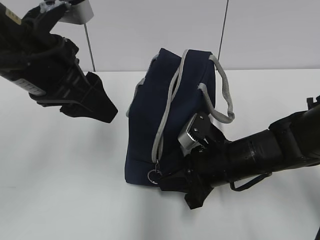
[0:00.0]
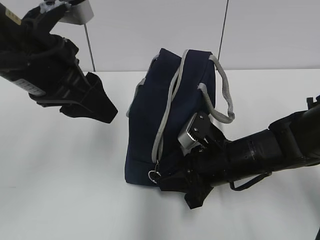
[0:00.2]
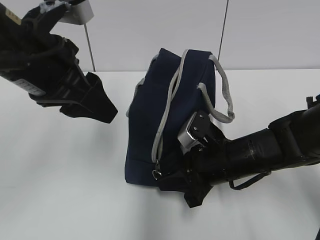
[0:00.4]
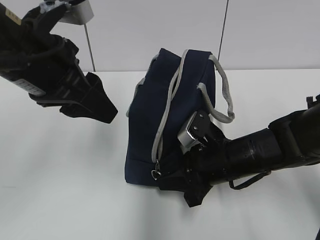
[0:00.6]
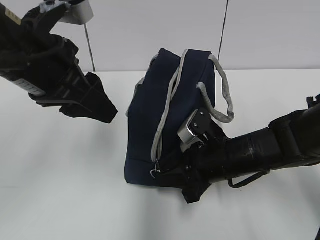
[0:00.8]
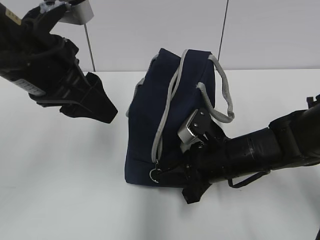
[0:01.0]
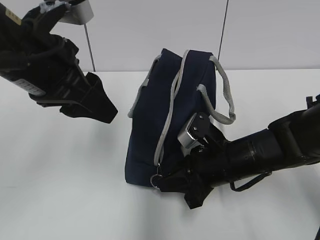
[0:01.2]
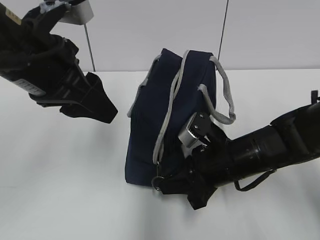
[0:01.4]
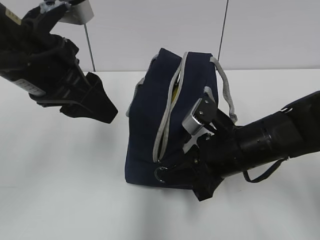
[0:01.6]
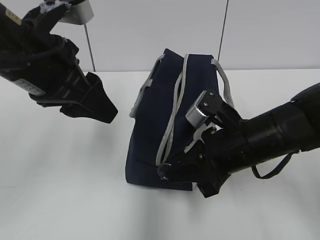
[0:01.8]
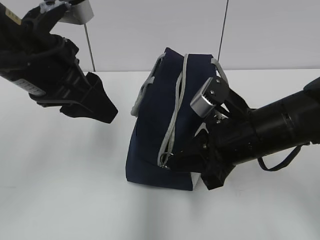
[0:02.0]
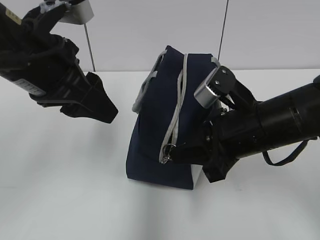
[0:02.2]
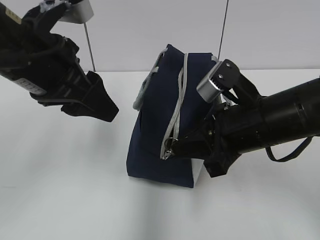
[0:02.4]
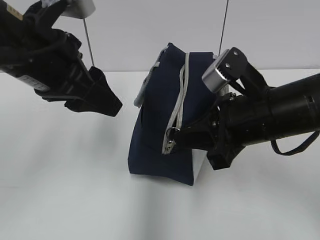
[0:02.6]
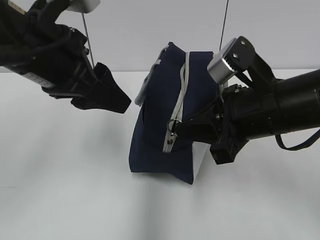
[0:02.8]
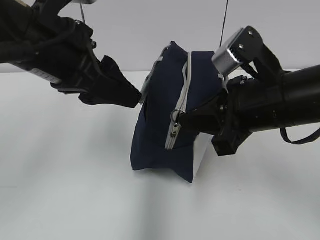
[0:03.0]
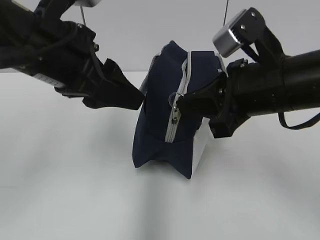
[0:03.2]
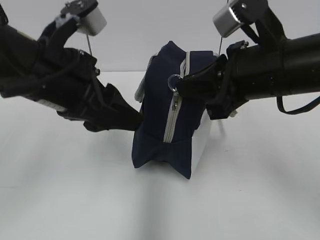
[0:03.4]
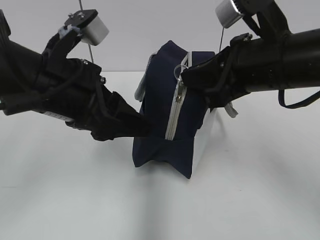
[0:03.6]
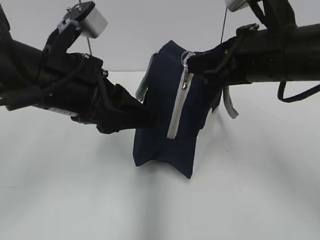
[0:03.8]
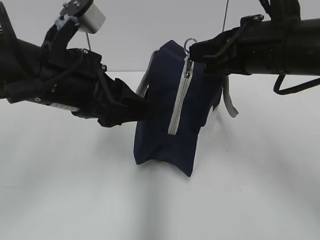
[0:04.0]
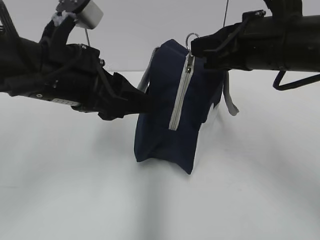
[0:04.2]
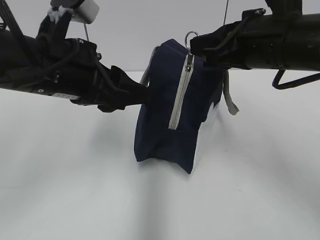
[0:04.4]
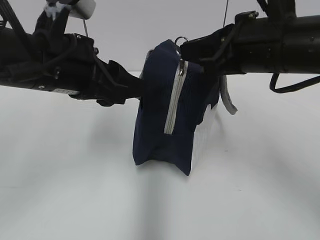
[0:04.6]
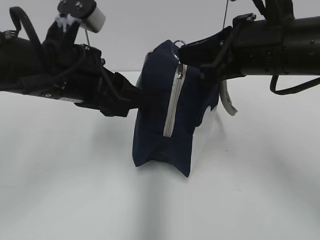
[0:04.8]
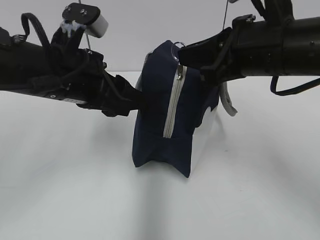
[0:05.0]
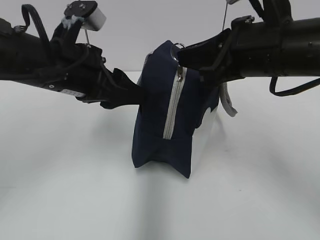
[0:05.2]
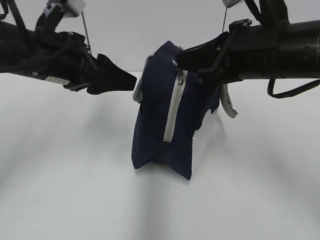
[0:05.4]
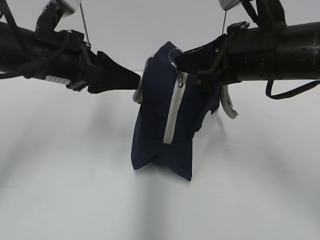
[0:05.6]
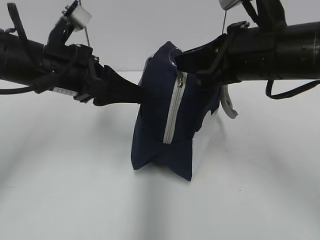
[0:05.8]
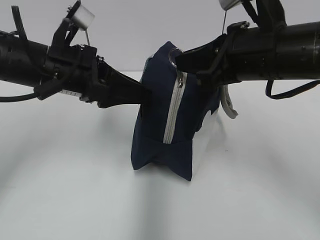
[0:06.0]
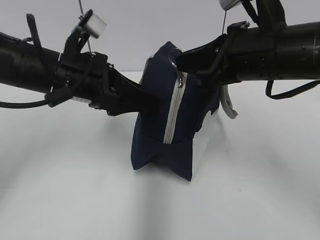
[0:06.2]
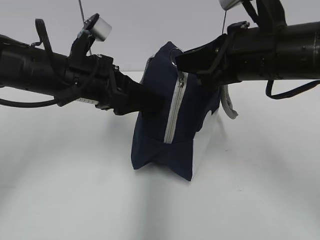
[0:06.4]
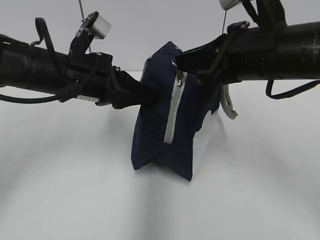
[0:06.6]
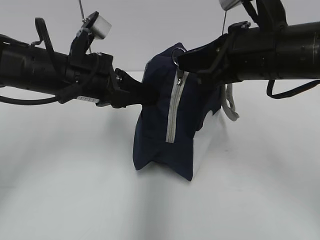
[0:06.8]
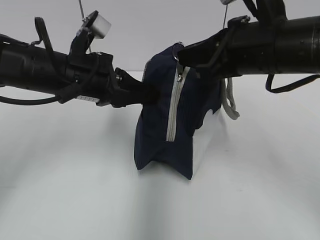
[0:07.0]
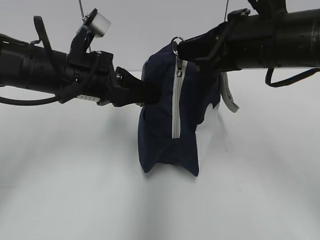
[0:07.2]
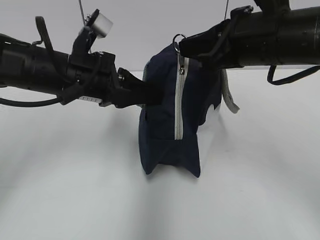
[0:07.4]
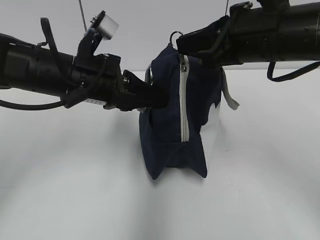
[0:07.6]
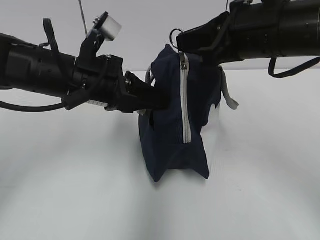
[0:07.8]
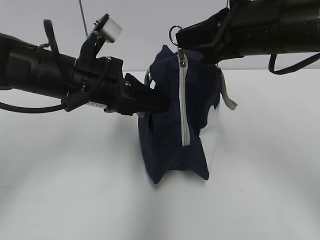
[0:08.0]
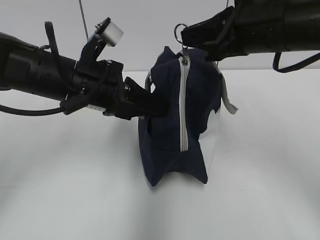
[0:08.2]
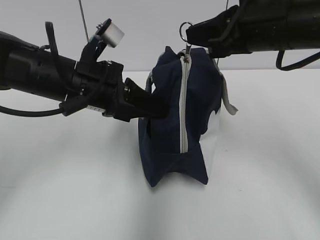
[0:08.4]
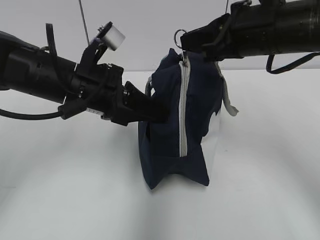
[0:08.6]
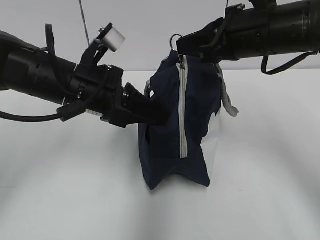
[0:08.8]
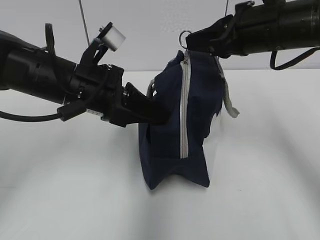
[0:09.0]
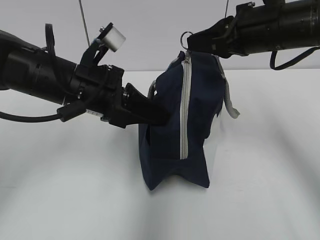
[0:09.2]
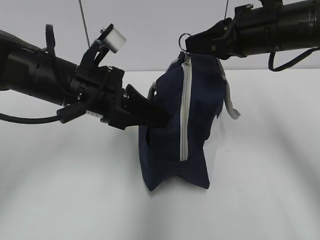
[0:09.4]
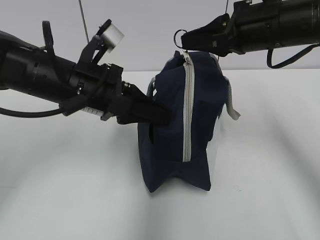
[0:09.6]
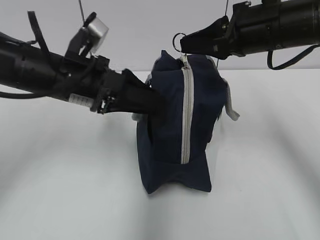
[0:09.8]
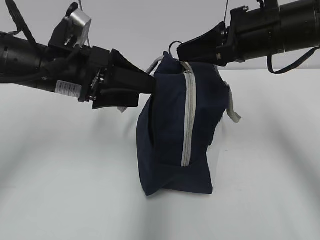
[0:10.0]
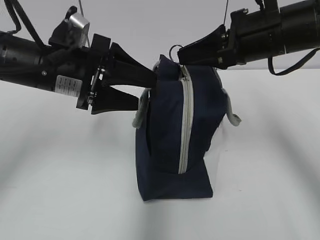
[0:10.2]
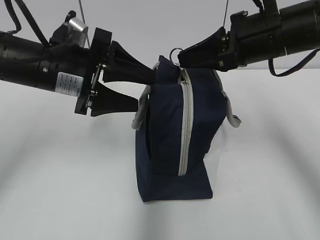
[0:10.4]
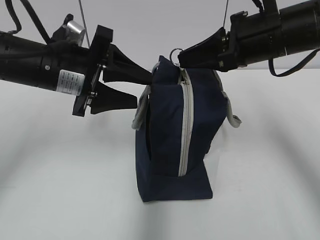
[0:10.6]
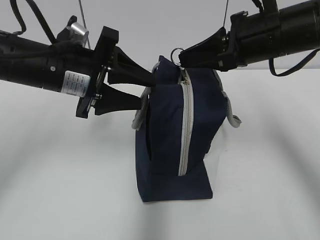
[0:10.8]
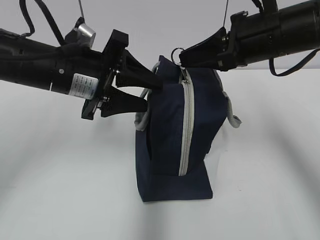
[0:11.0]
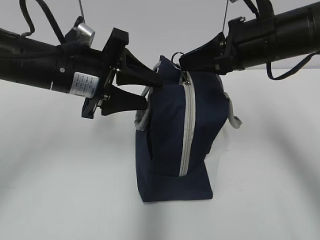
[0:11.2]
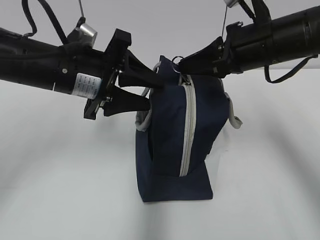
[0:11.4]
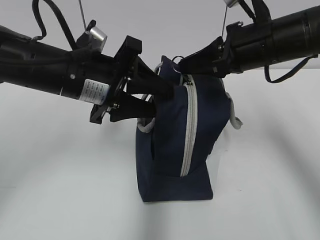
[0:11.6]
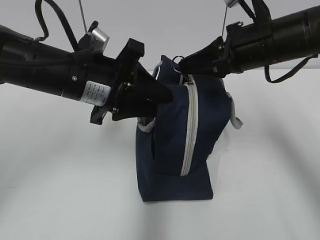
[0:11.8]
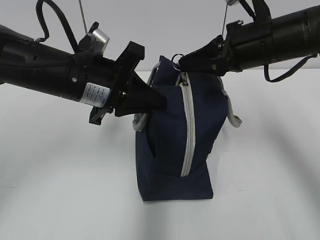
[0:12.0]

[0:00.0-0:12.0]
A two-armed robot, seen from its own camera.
0:00.0 to 0:01.6: The grippers stay close to where they were, moving slightly.
0:01.6 to 0:03.0: The right gripper moves upward, about 10 cm.
0:03.0 to 0:04.4: The right gripper ends up approximately 5 cm from where it was.
0:04.4 to 0:06.0: The left gripper heads forward, covering roughly 5 cm.
0:06.0 to 0:07.6: The left gripper closes up.
0:07.6 to 0:09.0: The right gripper ends up about 5 cm from where it was.
0:09.0 to 0:10.4: The left gripper opens its fingers.
0:10.4 to 0:12.0: The left gripper closes up.

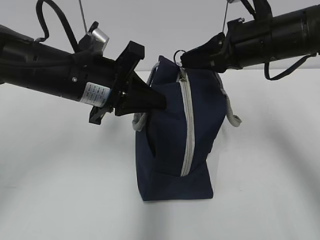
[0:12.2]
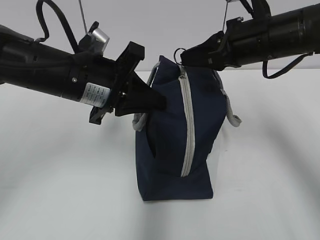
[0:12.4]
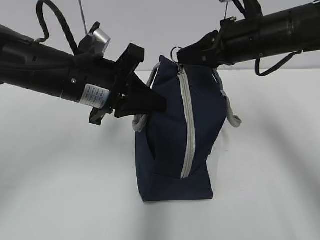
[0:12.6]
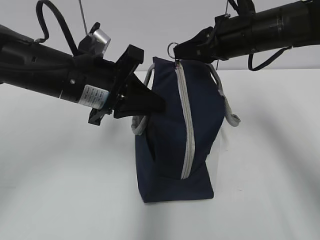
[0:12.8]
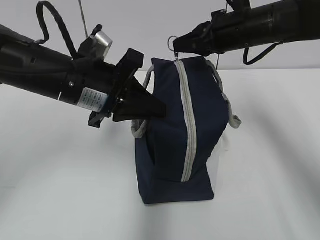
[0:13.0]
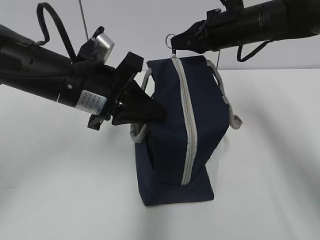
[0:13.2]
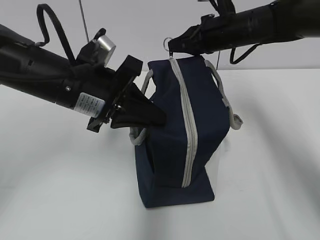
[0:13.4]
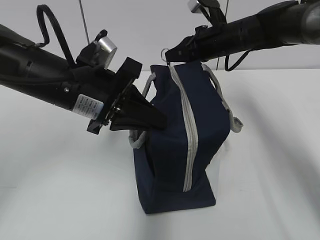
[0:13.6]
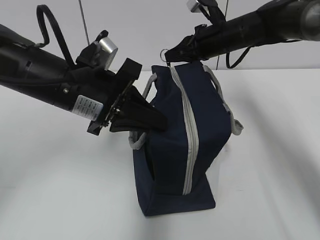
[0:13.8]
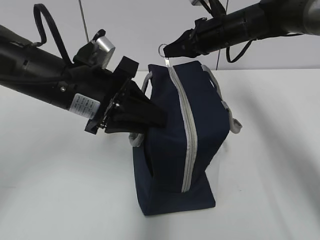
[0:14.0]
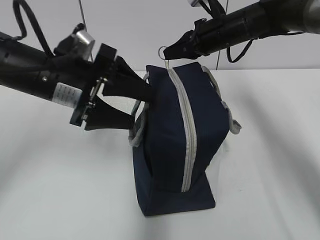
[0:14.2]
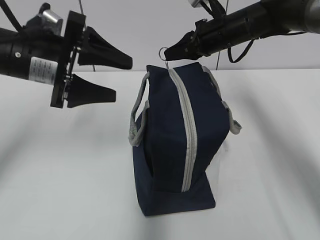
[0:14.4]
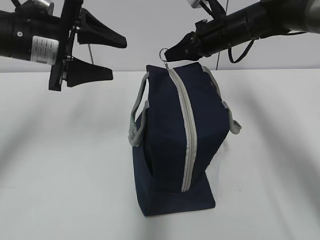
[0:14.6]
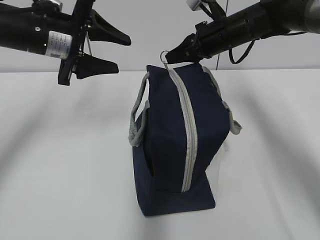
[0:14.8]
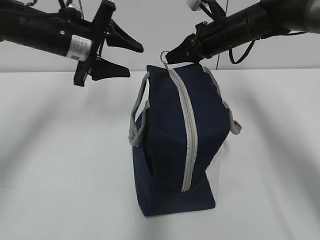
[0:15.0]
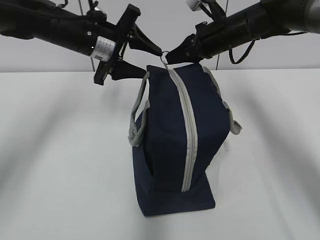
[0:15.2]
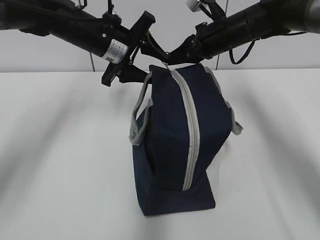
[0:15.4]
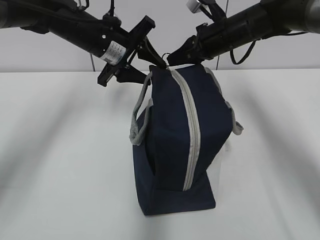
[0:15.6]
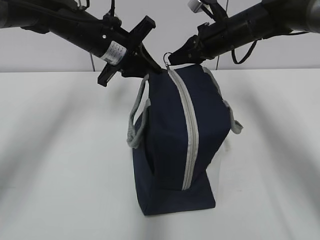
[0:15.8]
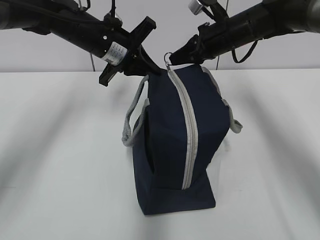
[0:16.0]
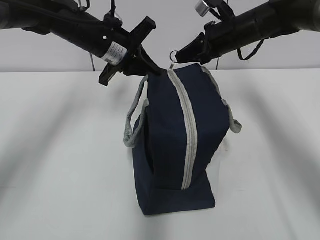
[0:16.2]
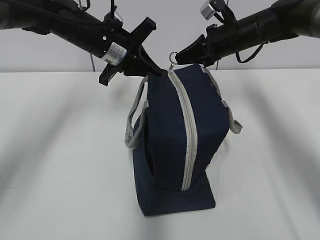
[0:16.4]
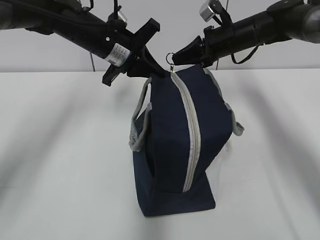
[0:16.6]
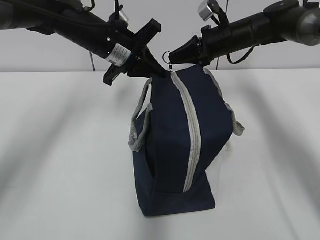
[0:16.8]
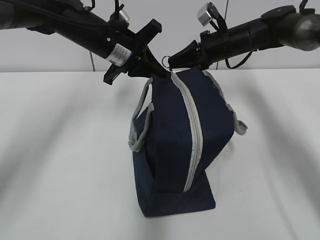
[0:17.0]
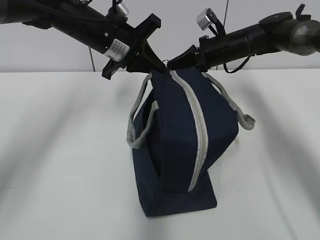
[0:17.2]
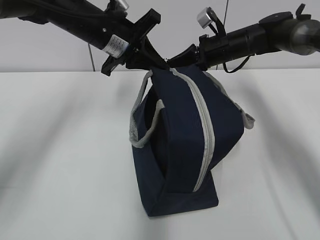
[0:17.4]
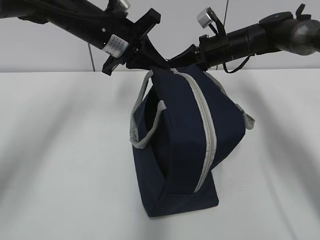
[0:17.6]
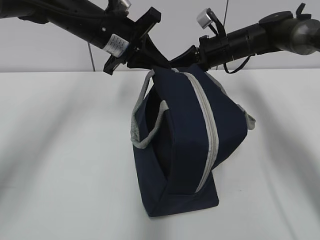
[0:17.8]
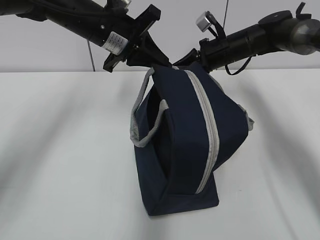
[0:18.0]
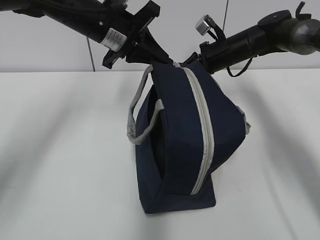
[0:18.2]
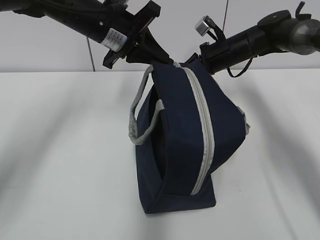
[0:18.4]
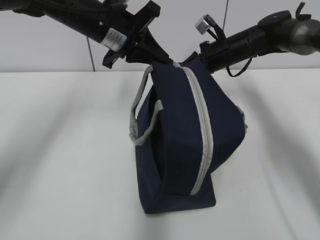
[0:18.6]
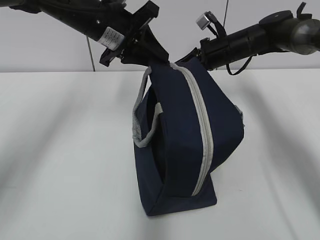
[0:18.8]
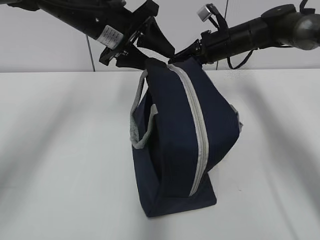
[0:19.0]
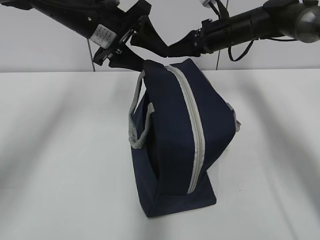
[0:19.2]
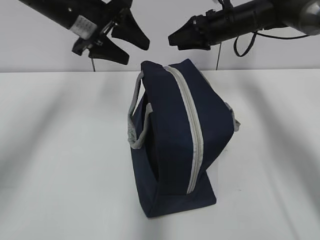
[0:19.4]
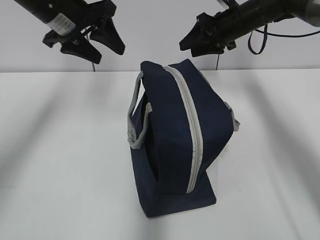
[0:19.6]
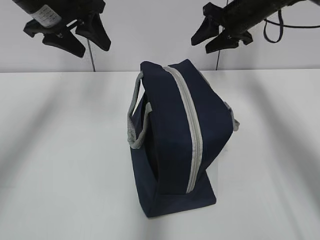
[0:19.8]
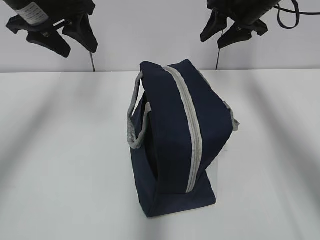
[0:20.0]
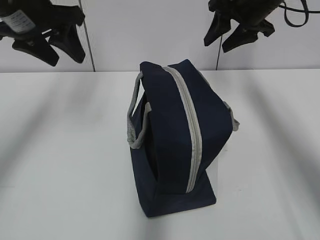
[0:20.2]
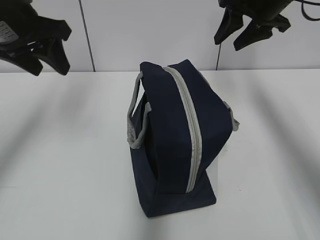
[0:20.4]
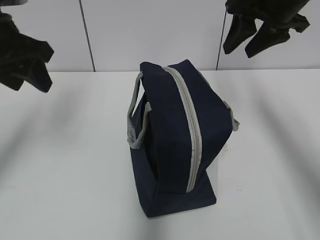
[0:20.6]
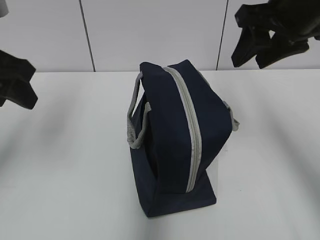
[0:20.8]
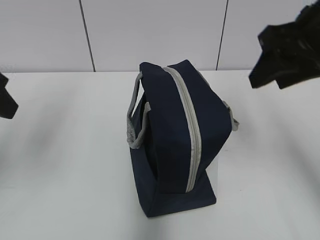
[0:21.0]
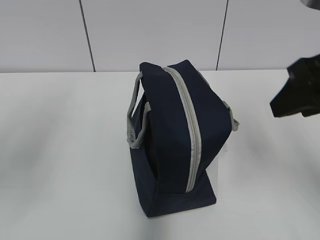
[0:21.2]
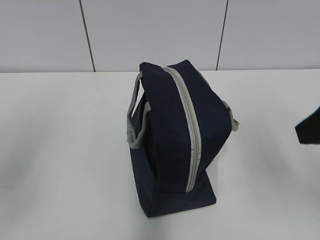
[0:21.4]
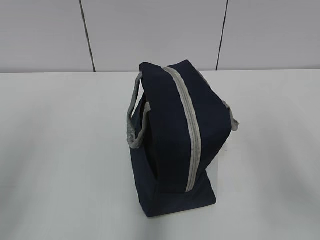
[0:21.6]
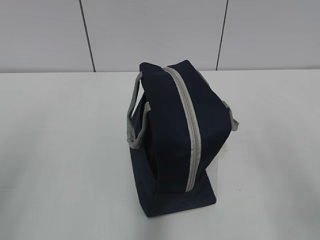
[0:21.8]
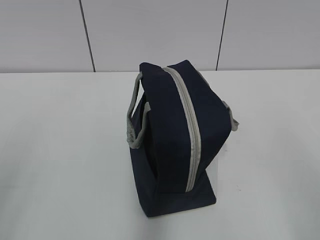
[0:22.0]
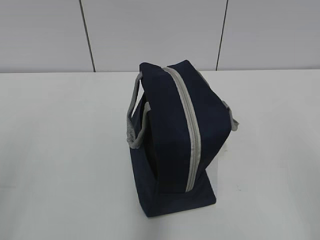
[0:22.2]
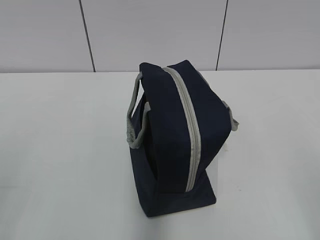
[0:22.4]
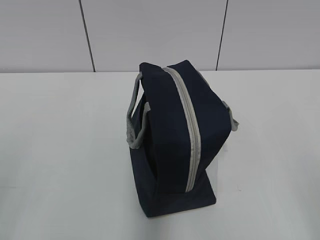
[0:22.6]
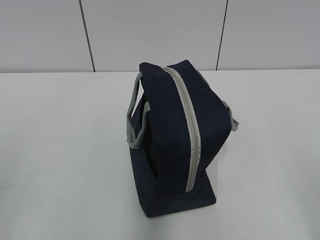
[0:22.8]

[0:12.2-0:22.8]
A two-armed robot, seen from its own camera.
0:12.2 to 0:13.8: The right gripper moves forward and downward, some 15 cm.
0:13.8 to 0:15.2: The left gripper is displaced forward by some 15 cm, and opens its fingers.
0:15.2 to 0:16.8: The left gripper closes.
0:18.2 to 0:19.8: The right gripper moves upward, approximately 10 cm, and opens. Meanwhile the left gripper is displaced to the left by roughly 10 cm, and opens.
0:19.8 to 0:21.2: Both grippers move backward, some 25 cm.
0:21.2 to 0:22.8: The right gripper travels backward by roughly 20 cm.
